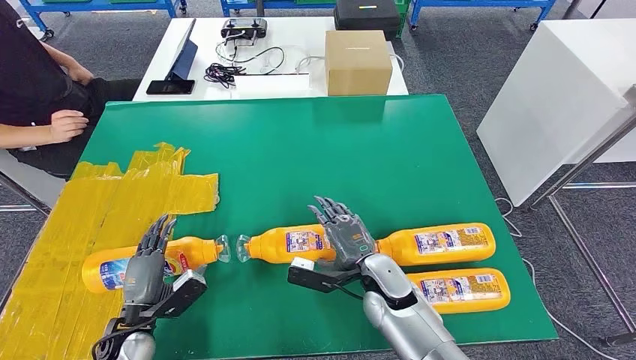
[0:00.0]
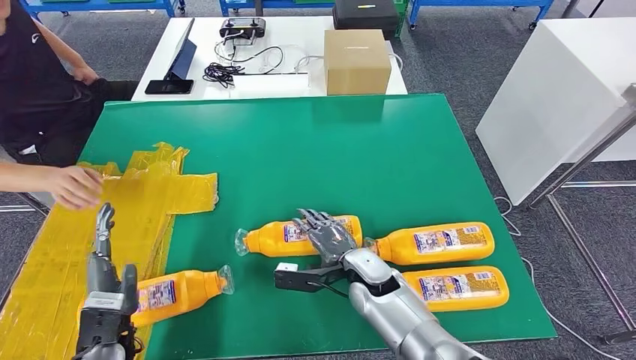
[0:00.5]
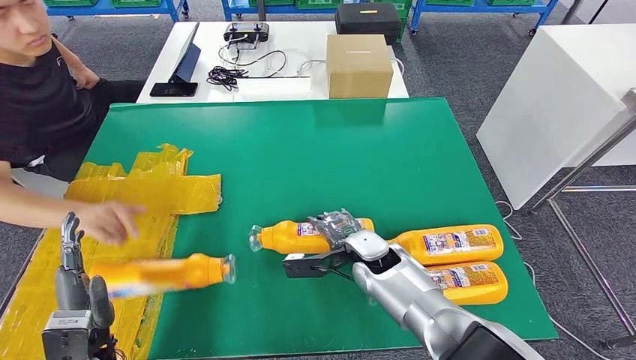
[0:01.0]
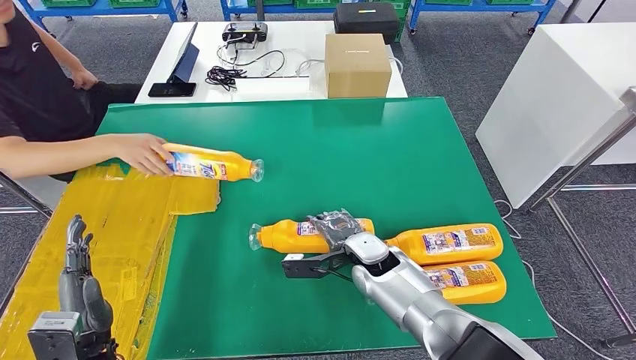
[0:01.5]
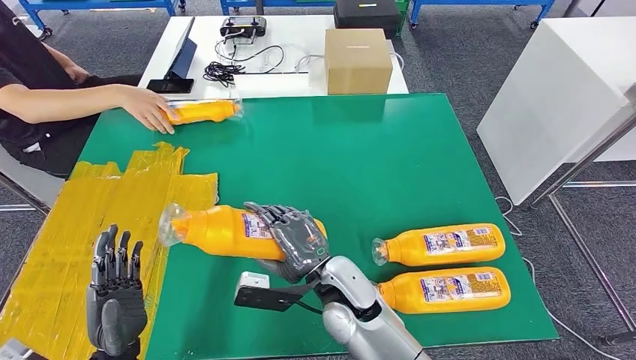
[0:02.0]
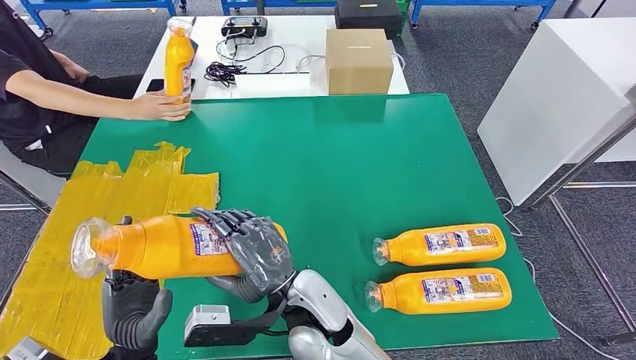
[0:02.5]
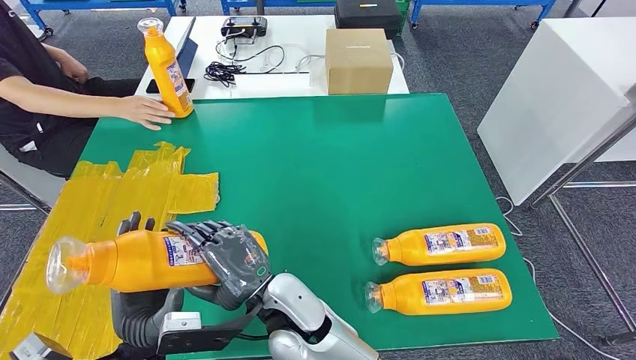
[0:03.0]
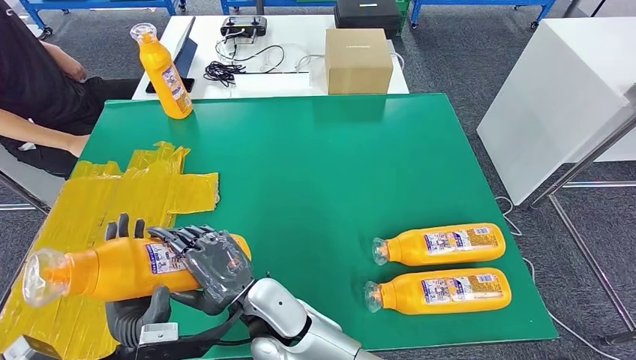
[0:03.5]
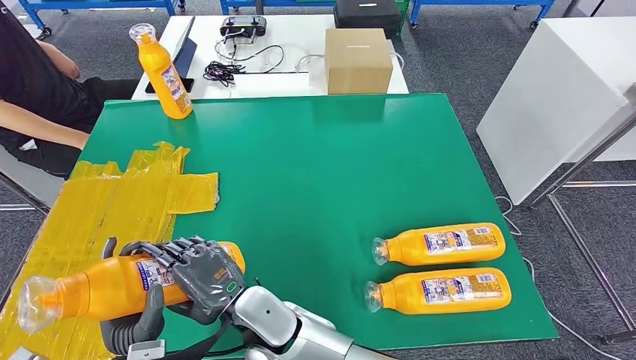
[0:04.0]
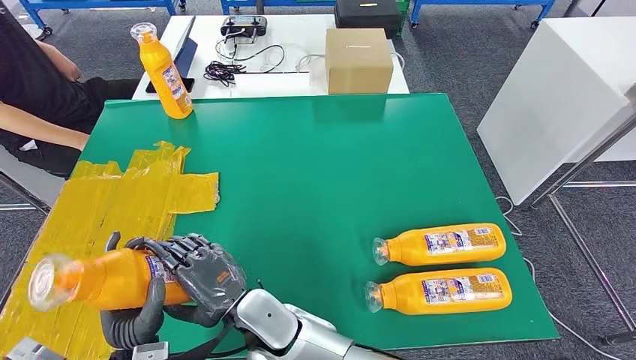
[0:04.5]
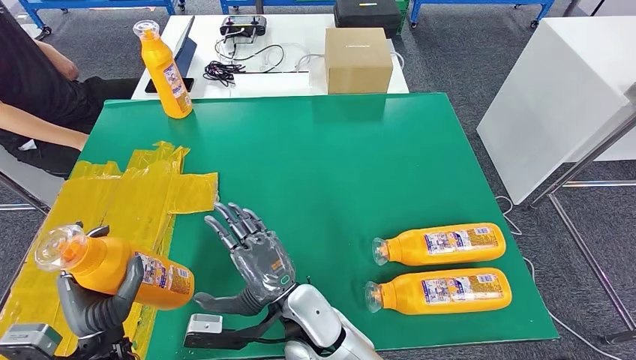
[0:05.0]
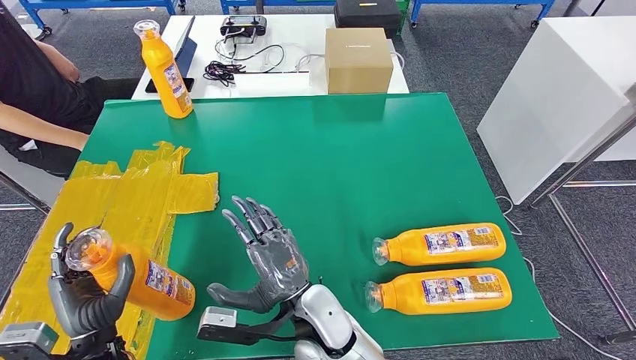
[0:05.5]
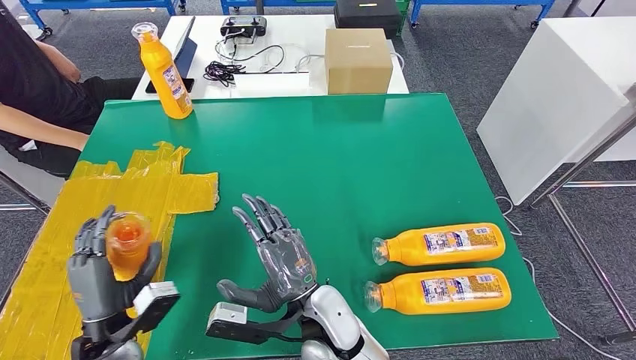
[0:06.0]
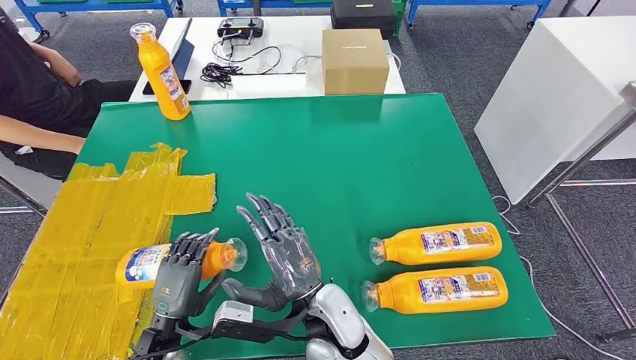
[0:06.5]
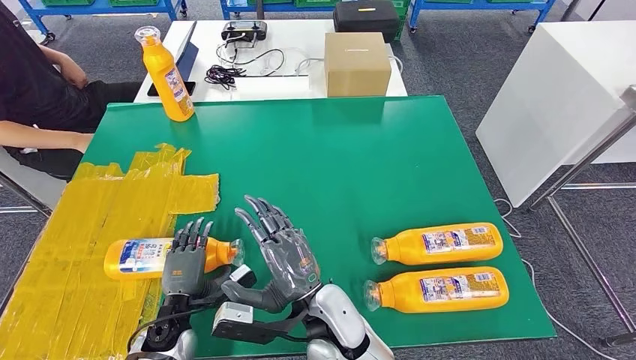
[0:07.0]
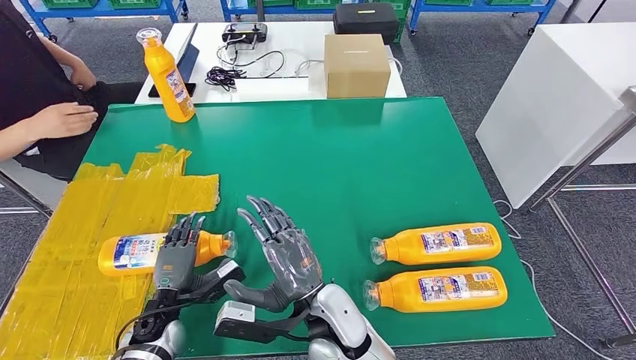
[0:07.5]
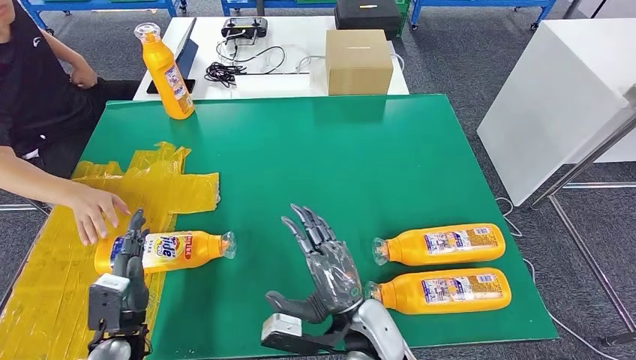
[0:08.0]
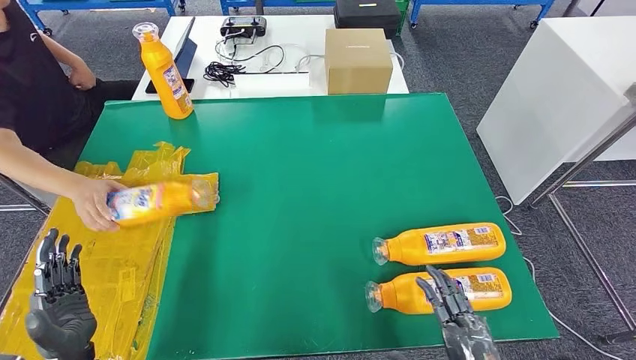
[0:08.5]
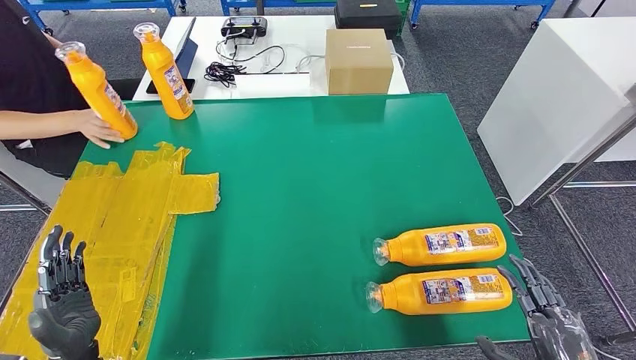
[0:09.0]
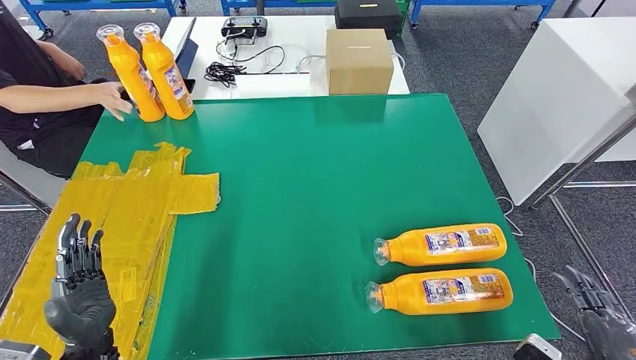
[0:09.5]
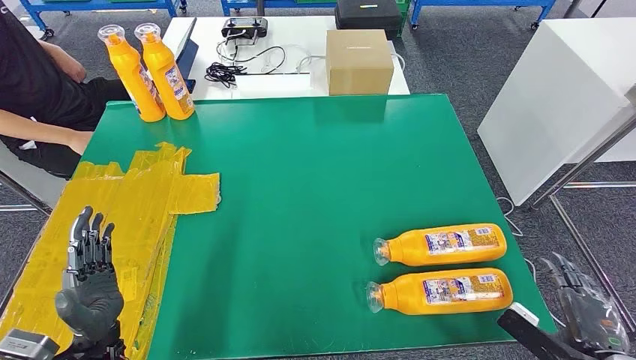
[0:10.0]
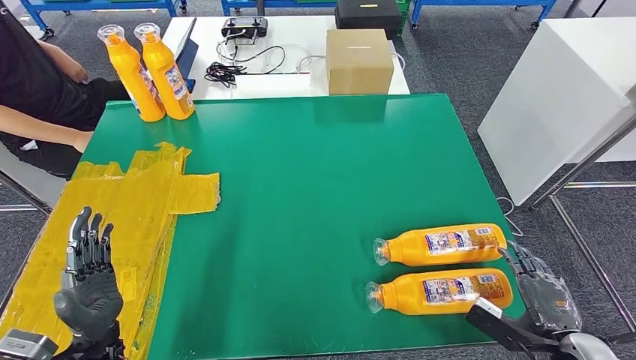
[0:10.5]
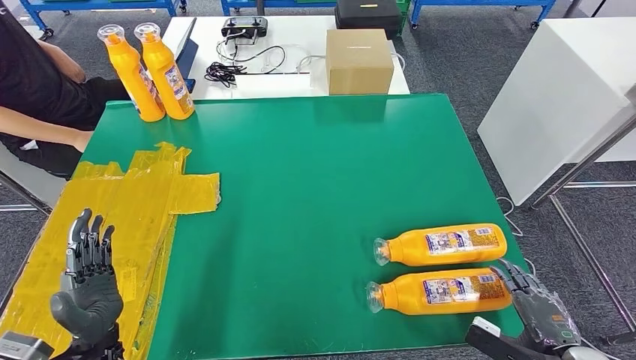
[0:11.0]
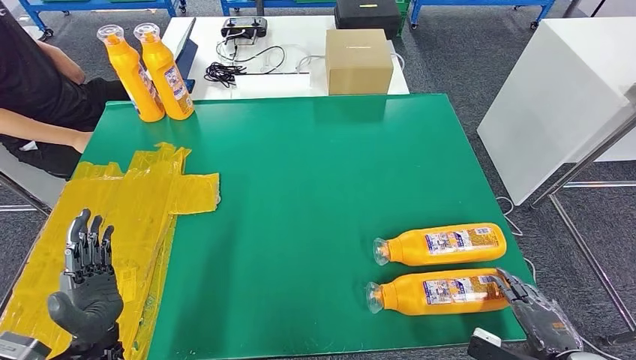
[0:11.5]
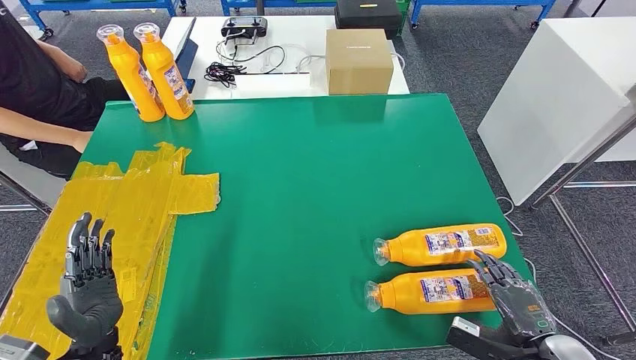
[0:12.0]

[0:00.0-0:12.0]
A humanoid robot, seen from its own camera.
Step, 0:00.5 to 0:03.0: Pick up the bottle from the table.
Step, 0:03.5 to 0:06.5: Flip the bottle to face forward.
0:02.0 to 0:04.0: The right hand moves to the left and backward, about 15 cm. Meanwhile the left hand moves approximately 5 cm.
0:04.0 to 0:06.0: The right hand travels to the right by approximately 10 cm, while the left hand moves to the left, roughly 5 cm.
0:06.0 to 0:08.0: The right hand shifts approximately 5 cm to the right.
0:08.0 to 0:10.0: The right hand shifts about 35 cm to the right. The left hand shifts some 5 cm upward.
0:10.0 to 0:12.0: The right hand travels to the left by about 5 cm.

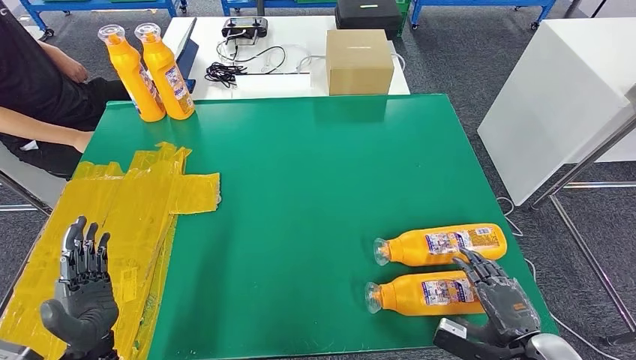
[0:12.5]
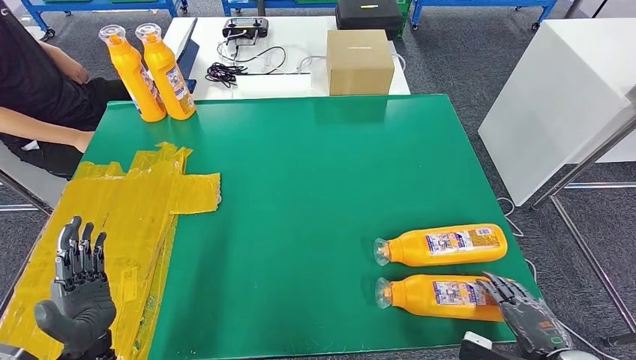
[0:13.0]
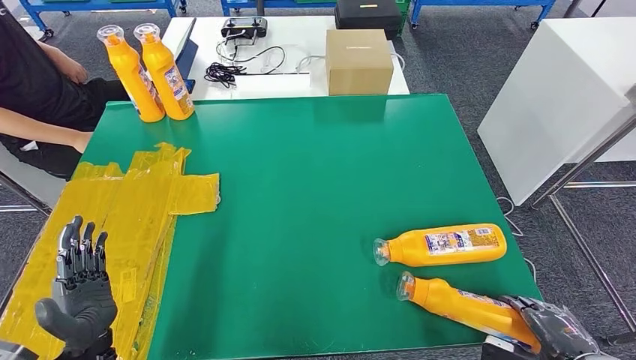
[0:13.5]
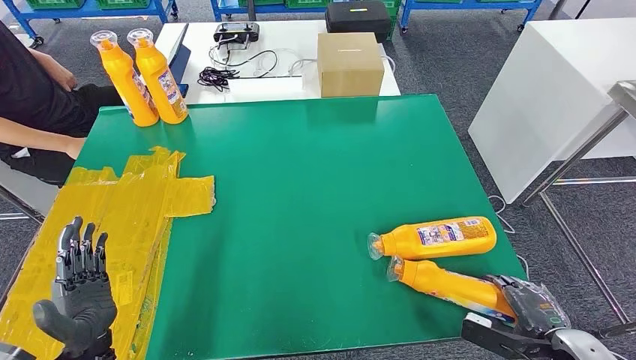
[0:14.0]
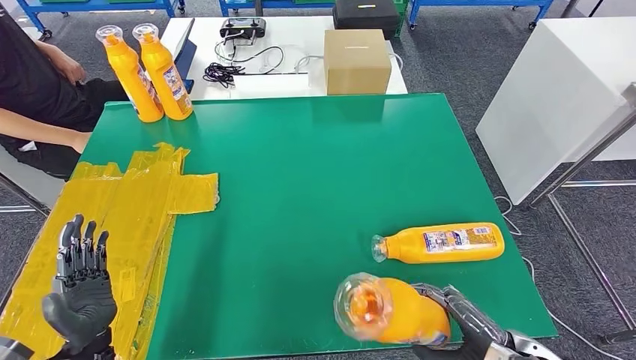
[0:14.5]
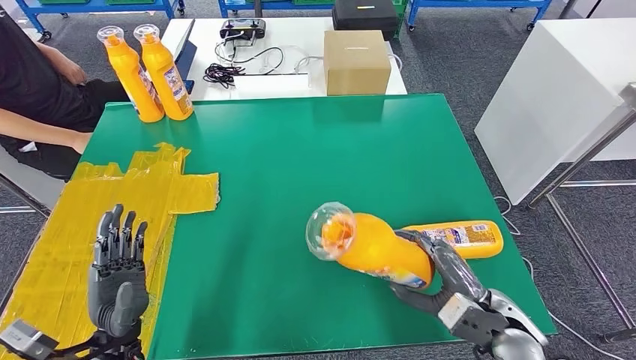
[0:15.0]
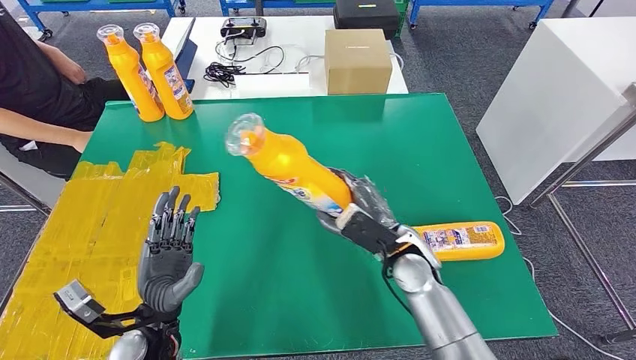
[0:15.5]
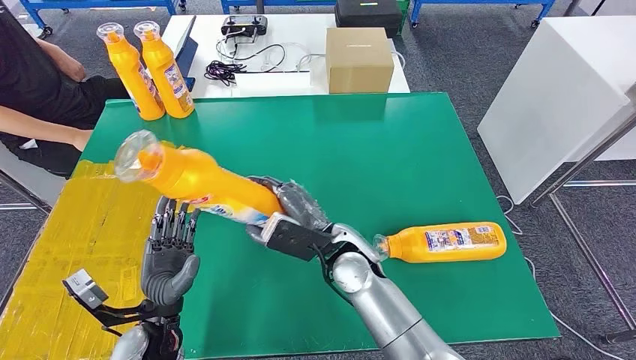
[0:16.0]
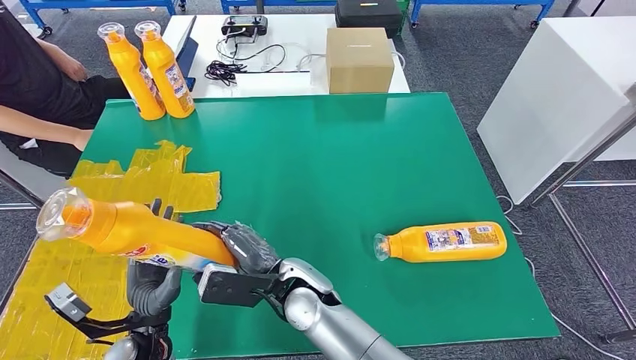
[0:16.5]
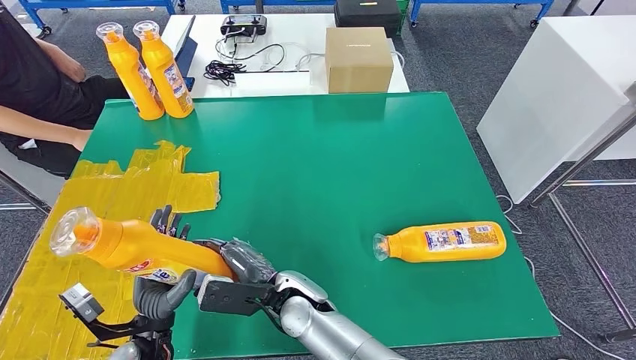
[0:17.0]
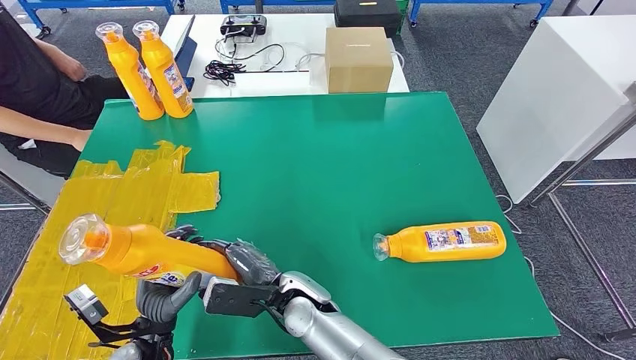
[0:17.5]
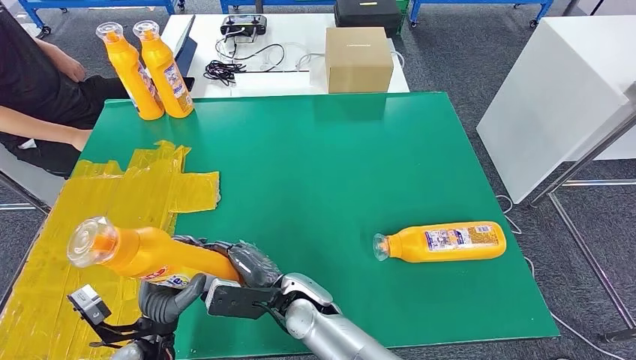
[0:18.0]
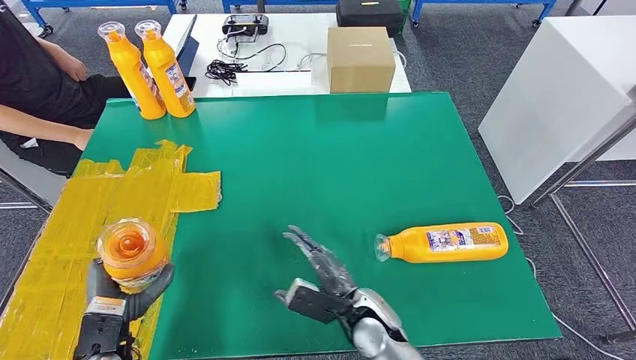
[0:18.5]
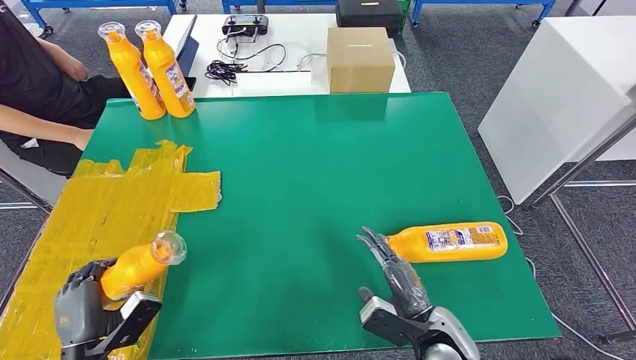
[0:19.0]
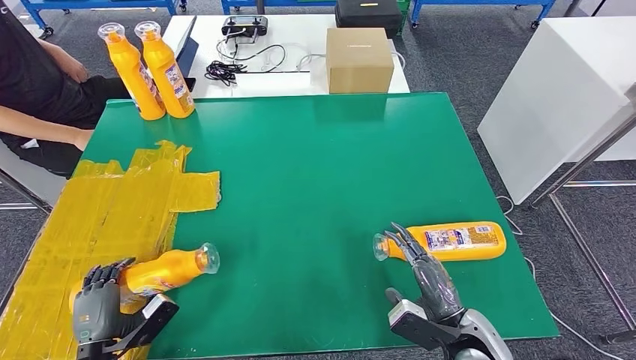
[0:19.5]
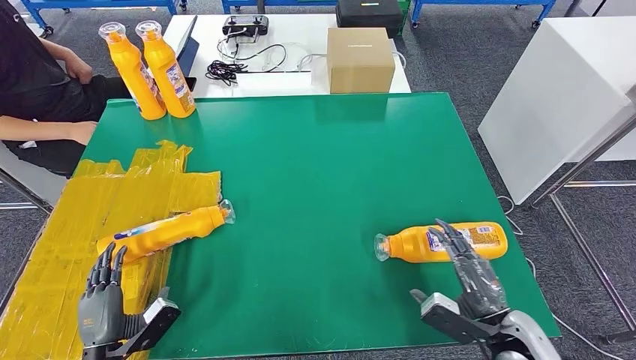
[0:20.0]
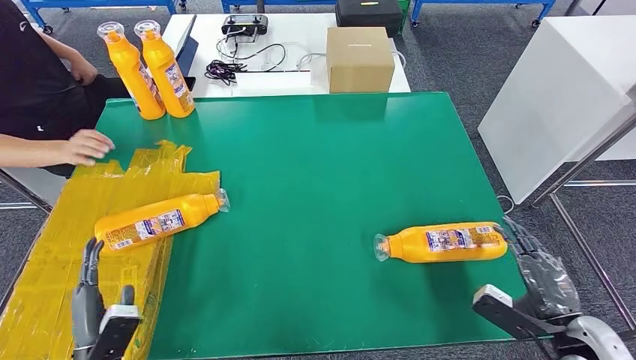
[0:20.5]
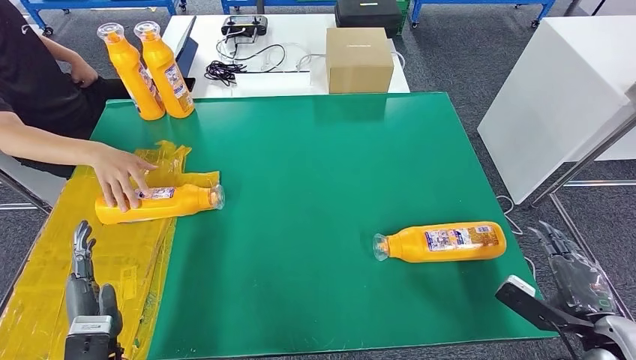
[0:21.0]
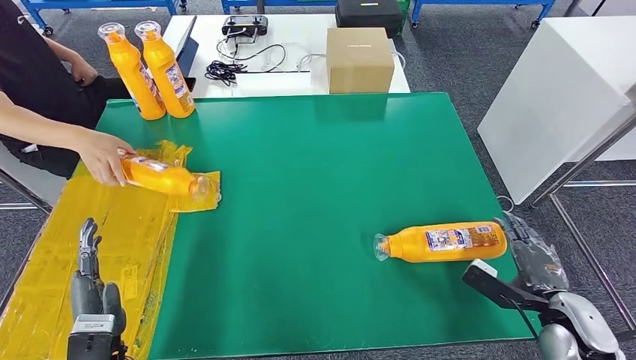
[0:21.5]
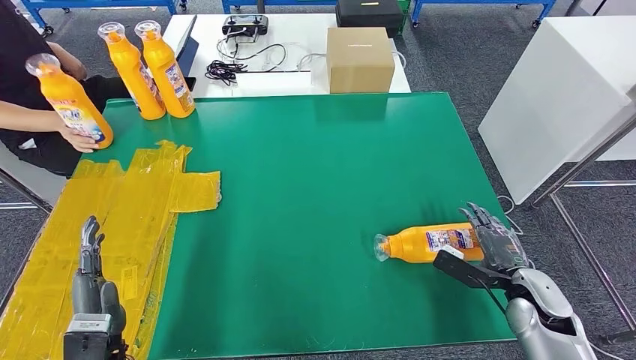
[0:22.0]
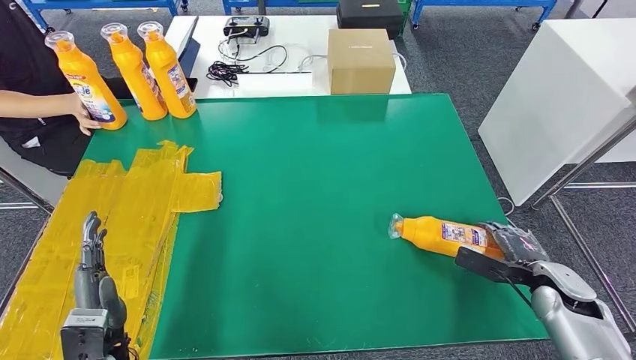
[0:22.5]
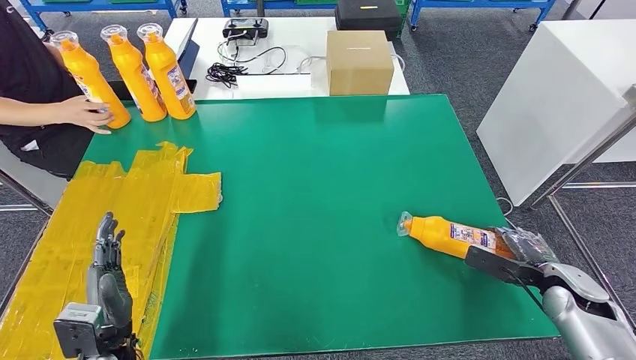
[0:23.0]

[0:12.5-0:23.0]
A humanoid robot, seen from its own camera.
Step, 0:14.5 to 0:20.5: Flip the bottle to face forward.
0:16.5 to 0:19.0: The left hand travels to the left and backward by roughly 10 cm. Meanwhile the right hand shifts about 25 cm to the right.
0:19.0 to 0:21.0: The right hand goes approximately 25 cm to the right.
